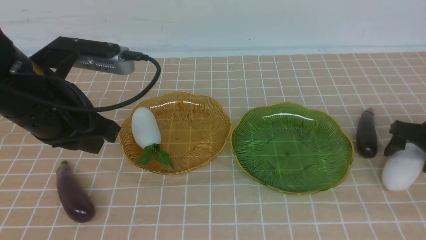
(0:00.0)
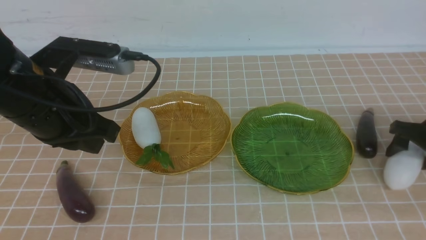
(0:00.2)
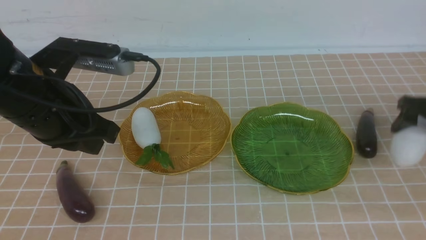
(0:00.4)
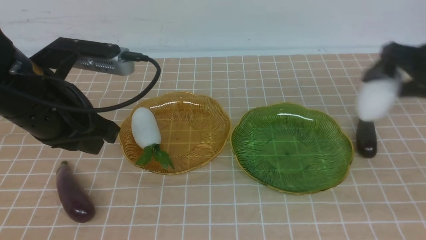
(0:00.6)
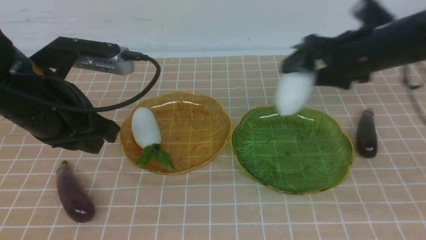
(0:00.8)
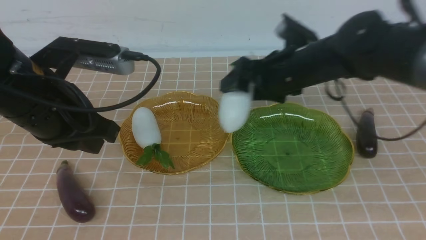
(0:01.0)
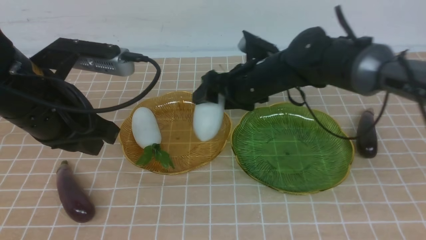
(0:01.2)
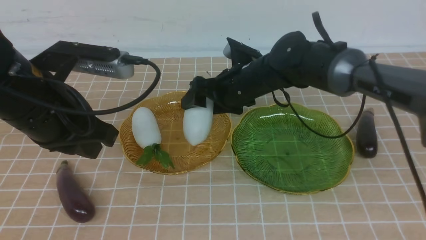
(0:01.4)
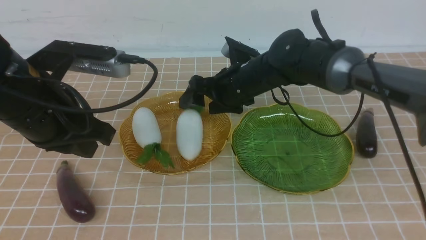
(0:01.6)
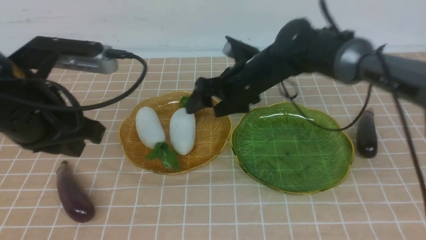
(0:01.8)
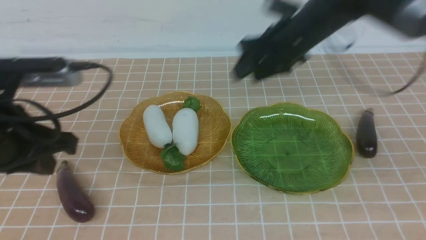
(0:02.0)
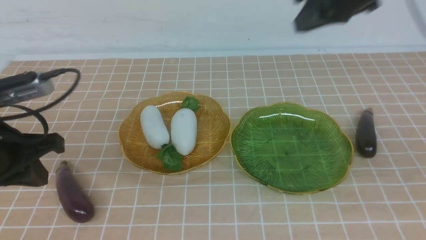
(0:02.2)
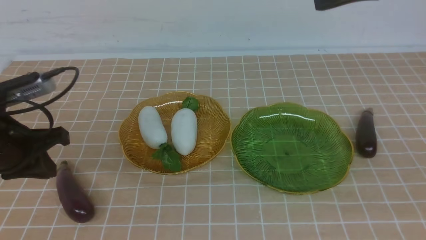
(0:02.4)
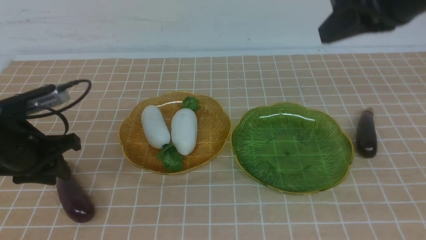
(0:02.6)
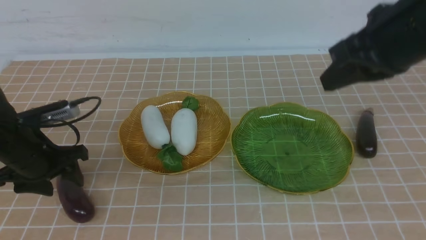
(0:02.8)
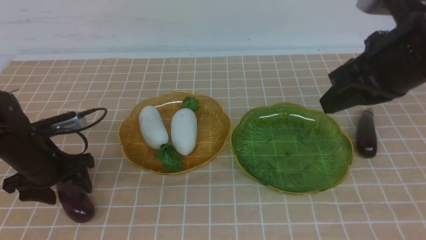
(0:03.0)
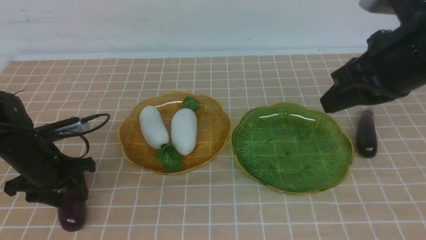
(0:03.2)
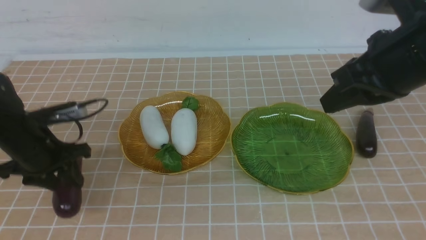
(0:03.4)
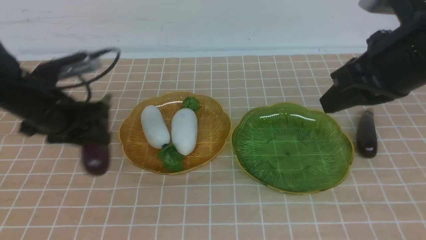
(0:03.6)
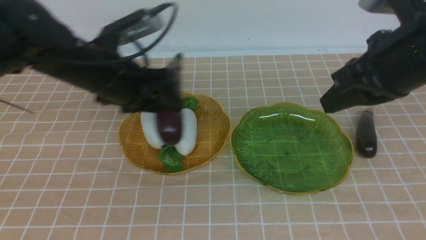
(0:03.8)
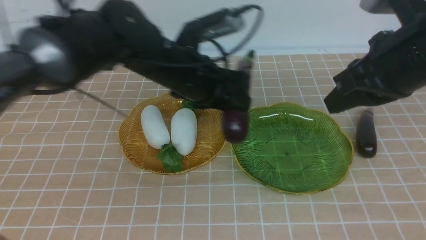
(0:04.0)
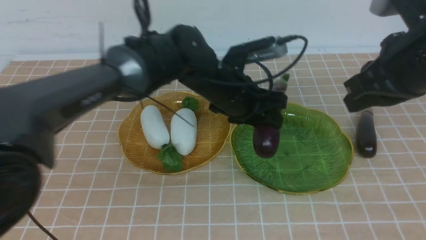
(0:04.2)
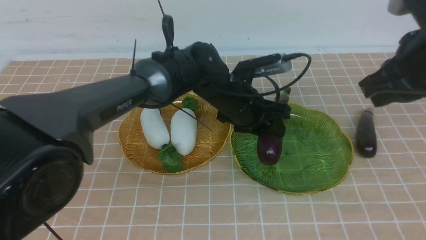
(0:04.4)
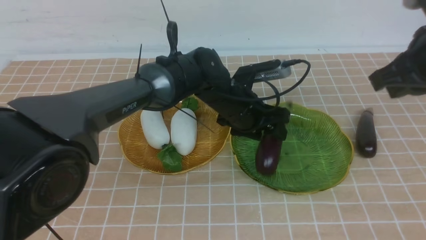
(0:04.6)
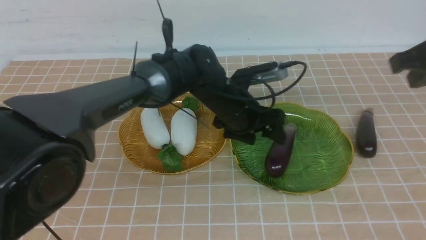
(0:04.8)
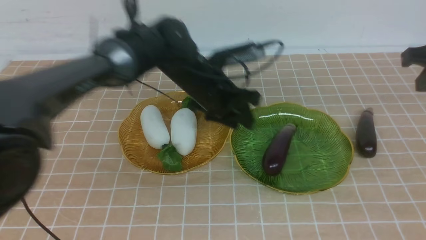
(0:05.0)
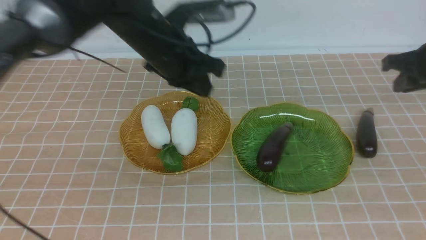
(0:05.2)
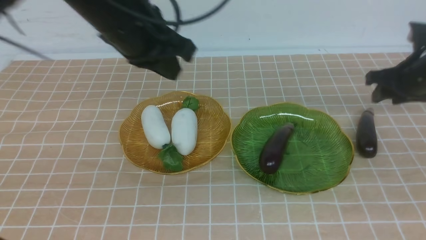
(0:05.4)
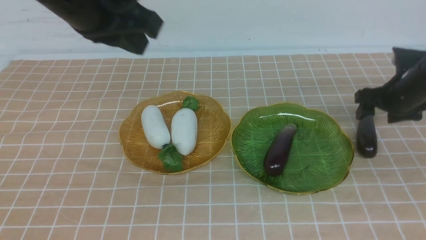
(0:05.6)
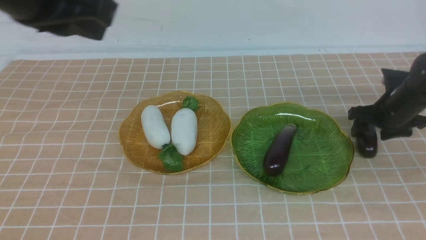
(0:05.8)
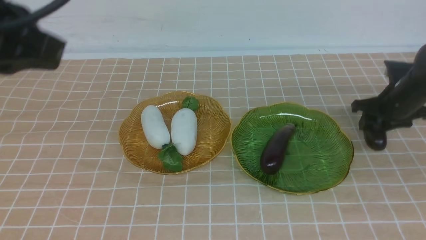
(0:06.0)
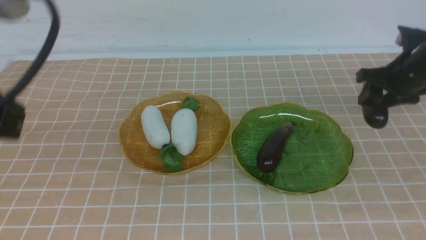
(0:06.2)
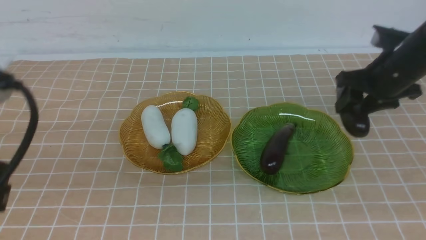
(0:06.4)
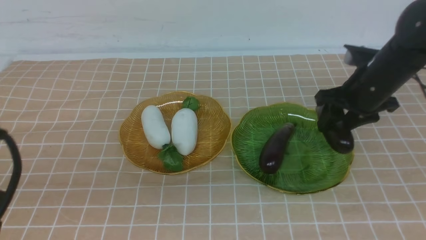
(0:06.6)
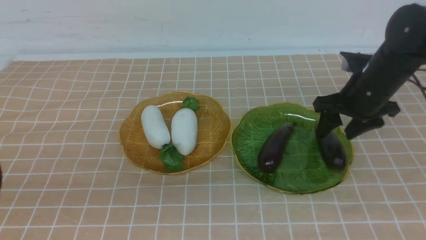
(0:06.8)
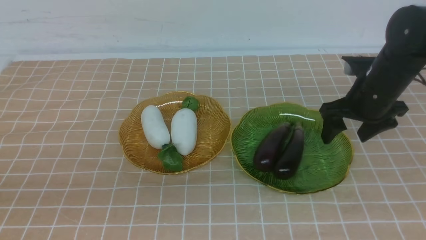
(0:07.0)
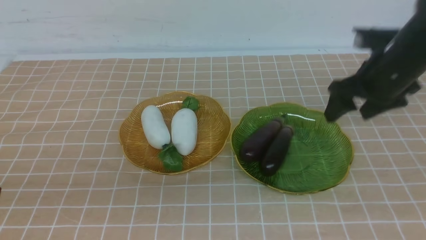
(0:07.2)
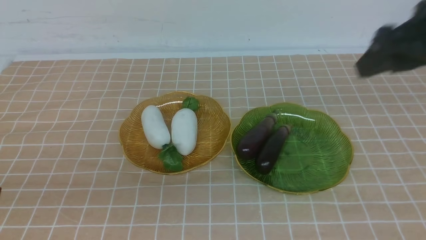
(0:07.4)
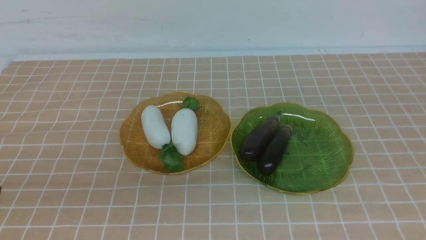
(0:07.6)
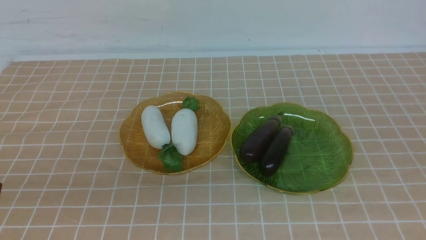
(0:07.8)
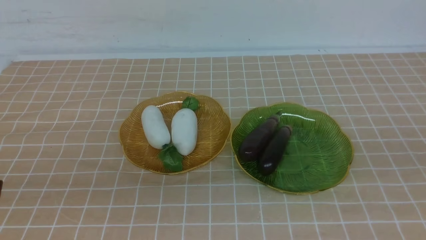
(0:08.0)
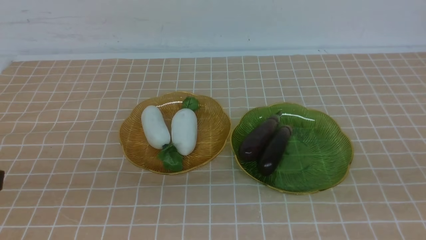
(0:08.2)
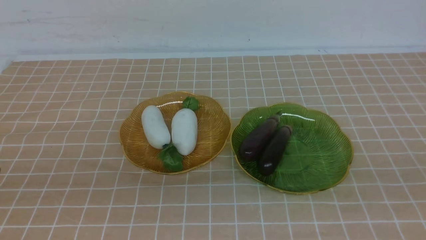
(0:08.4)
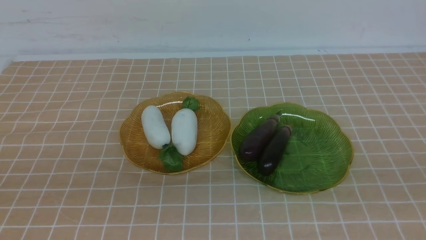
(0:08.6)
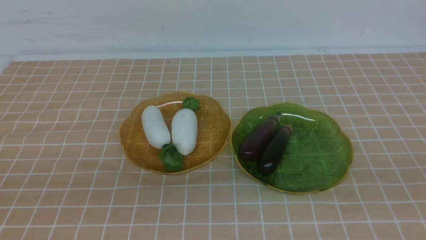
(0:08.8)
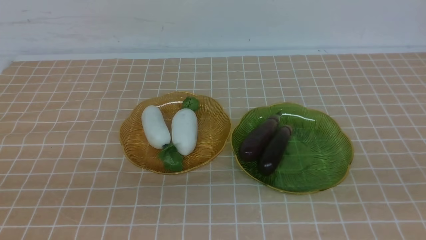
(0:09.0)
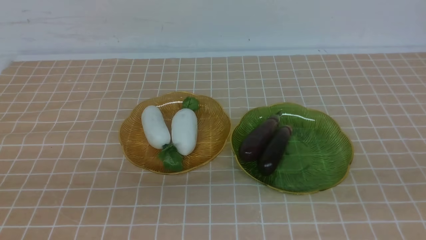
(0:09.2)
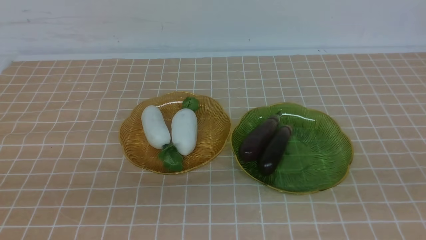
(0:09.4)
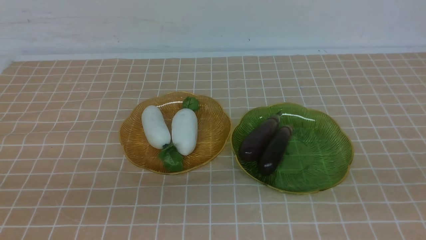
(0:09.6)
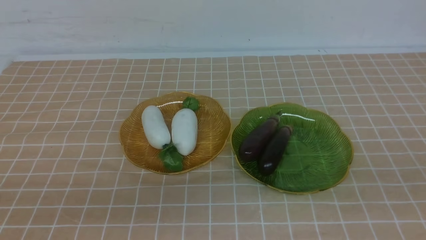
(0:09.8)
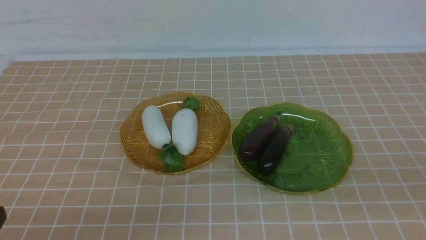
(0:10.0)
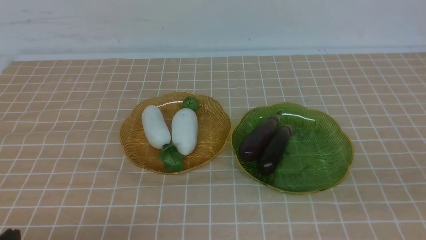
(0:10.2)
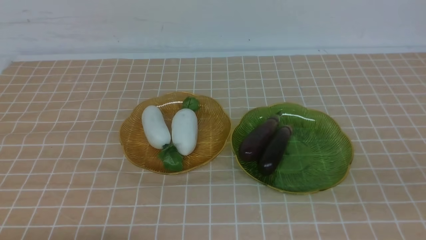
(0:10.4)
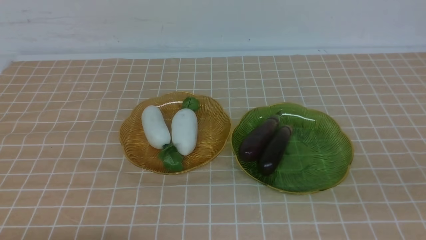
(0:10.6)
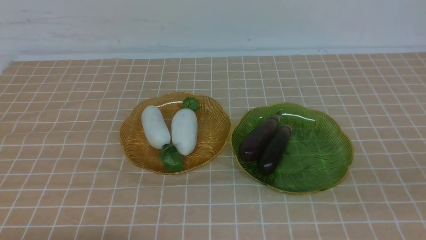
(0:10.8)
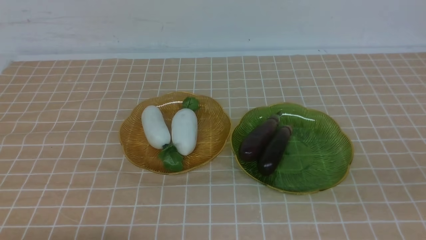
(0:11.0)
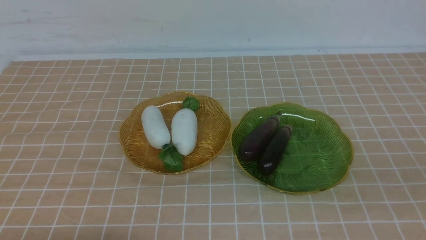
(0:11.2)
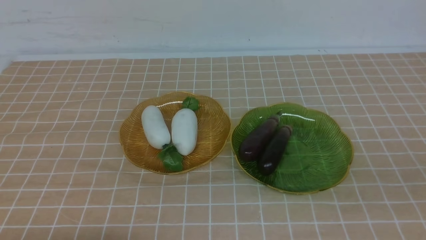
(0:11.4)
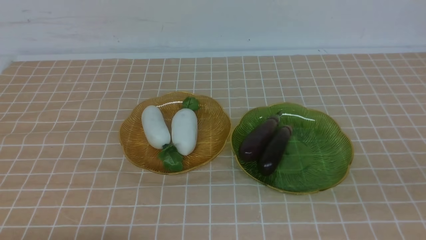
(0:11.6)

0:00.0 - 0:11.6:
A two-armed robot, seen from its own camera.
Step, 0:00.0 - 0:02.0: use the right arm to grab a radish and put it into the left plate.
Step, 0:02.2 - 0:04.8: use the left arm to grab an eggplant and put it into the right plate.
Step, 0:05.0 - 0:07.0: use the right arm to grab an eggplant and put it into the right plate.
0:00.0 - 0:01.4: The right gripper travels to the left by roughly 35 cm.
0:01.4 - 0:02.8: The left gripper heads downward and to the left, covering about 15 cm, and opens. Meanwhile the right gripper shifts roughly 30 cm upward, to the right and backward, and closes up.
0:02.8 - 0:04.4: The left gripper heads to the right, covering about 30 cm.
0:04.4 - 0:05.8: The right gripper moves downward, forward and to the right, about 25 cm, and opens its fingers. The left gripper moves upward, to the left and backward, about 35 cm, and closes.
0:05.8 - 0:07.2: The right gripper is displaced upward and backward by about 25 cm. Meanwhile the left gripper moves backward, downward and to the left, approximately 15 cm.
0:07.2 - 0:08.8: The right gripper goes roughly 25 cm backward, and closes up.

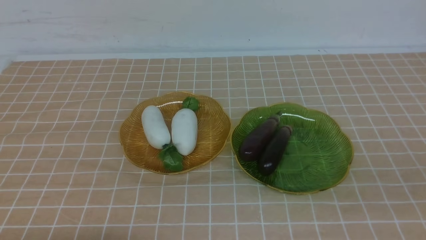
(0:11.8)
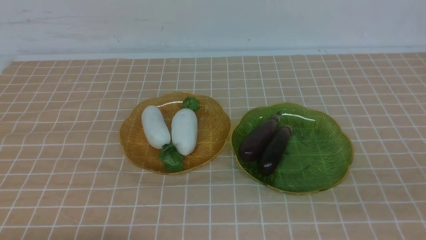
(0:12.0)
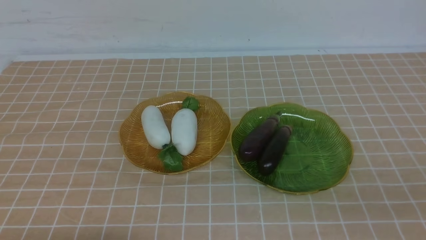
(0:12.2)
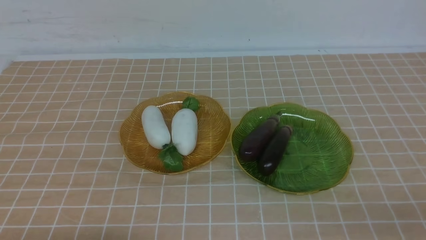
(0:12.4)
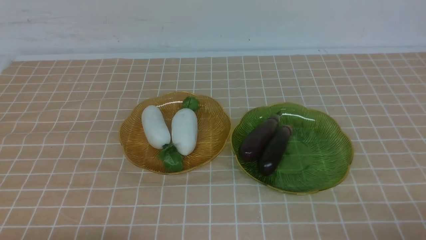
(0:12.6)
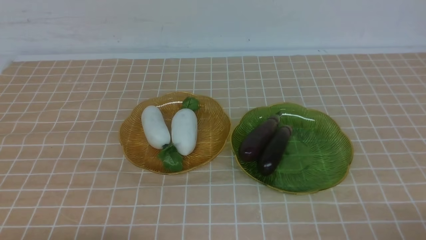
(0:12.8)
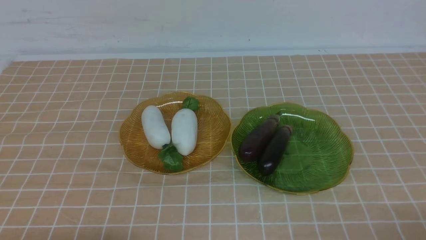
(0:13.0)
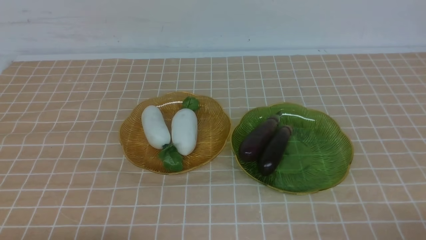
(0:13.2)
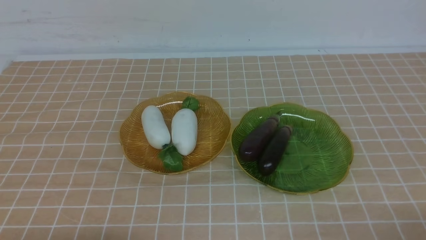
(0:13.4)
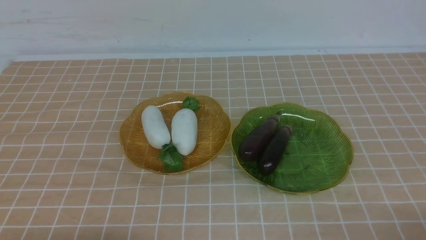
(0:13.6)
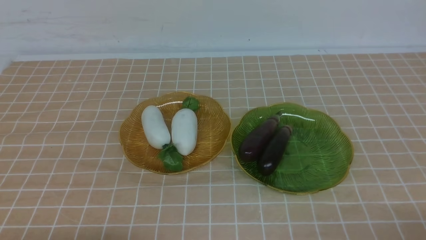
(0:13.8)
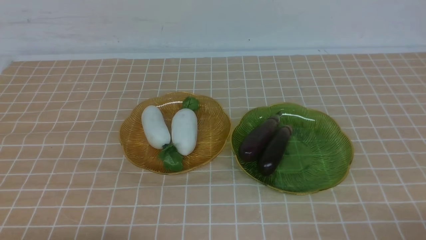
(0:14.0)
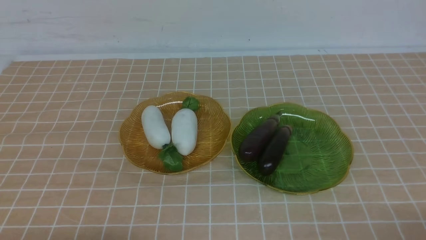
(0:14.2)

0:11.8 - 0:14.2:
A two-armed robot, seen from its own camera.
0:13.0 - 0:14.2: Neither gripper changes place.
